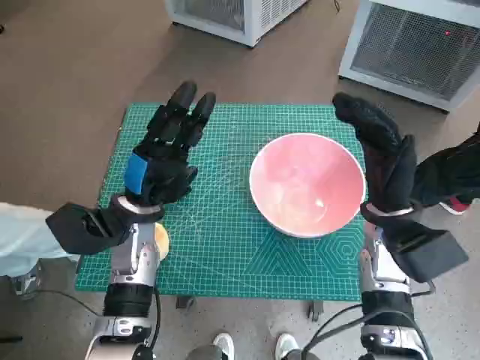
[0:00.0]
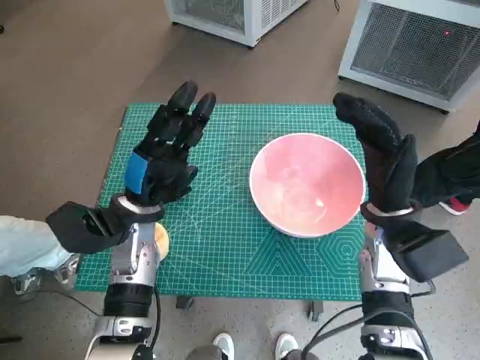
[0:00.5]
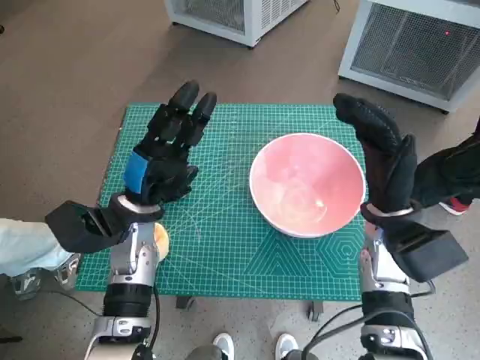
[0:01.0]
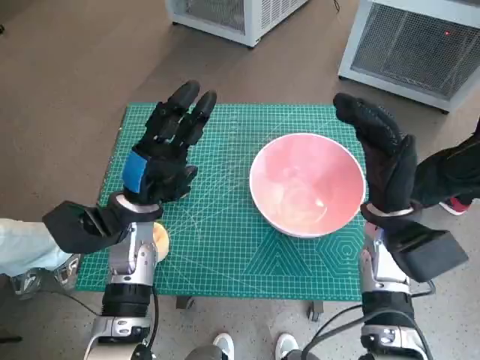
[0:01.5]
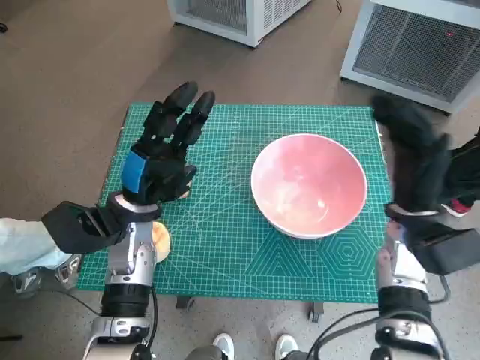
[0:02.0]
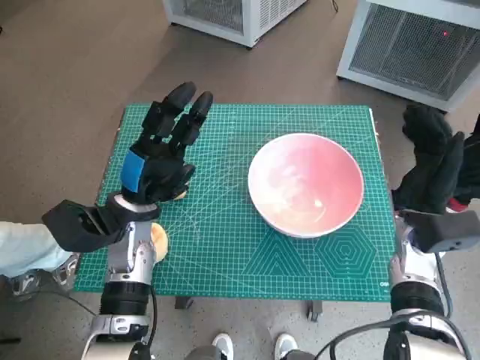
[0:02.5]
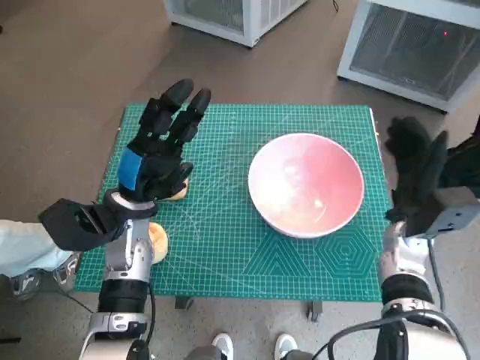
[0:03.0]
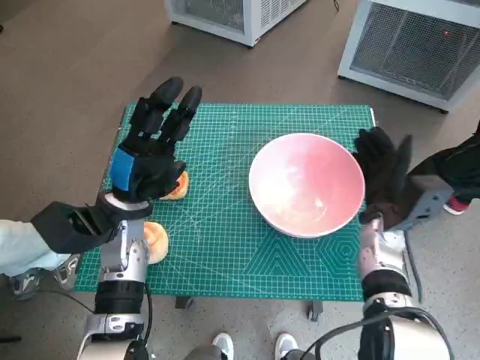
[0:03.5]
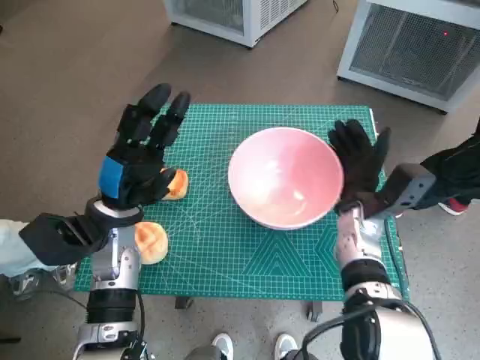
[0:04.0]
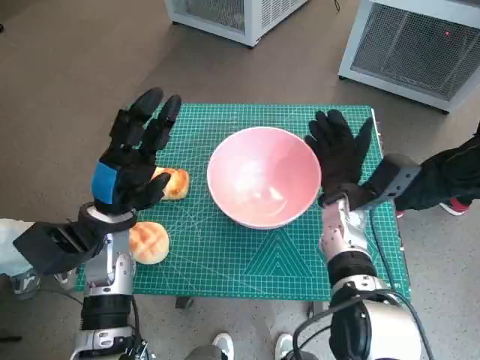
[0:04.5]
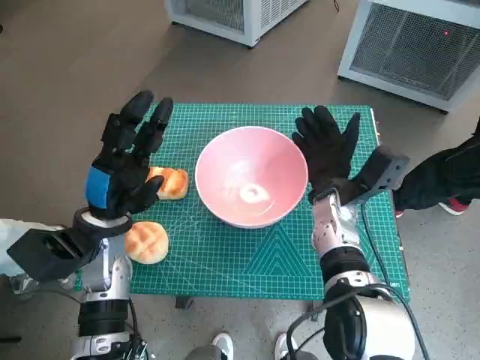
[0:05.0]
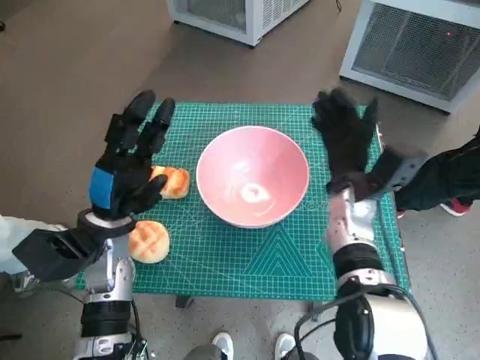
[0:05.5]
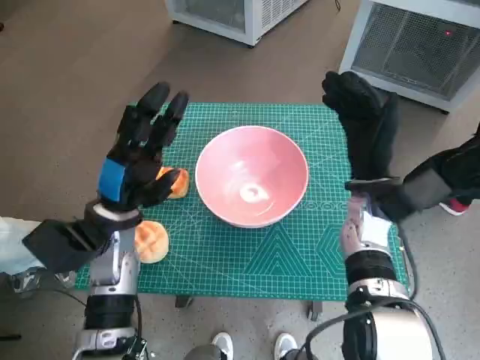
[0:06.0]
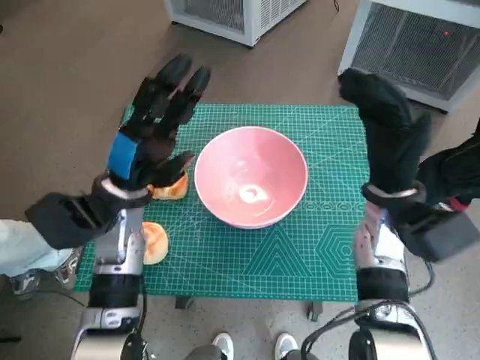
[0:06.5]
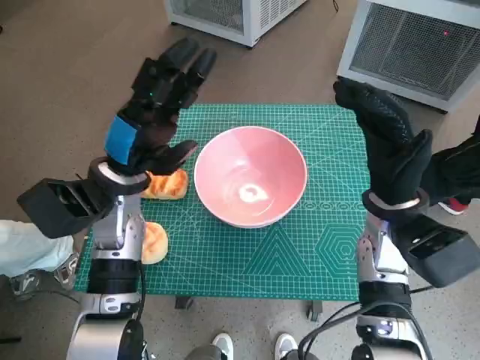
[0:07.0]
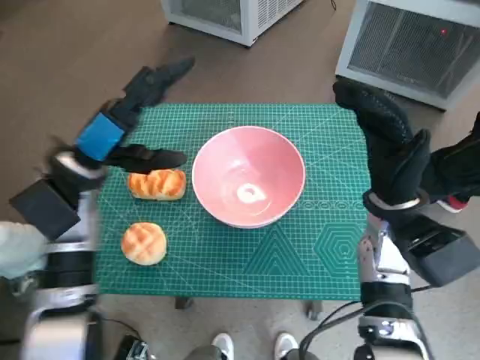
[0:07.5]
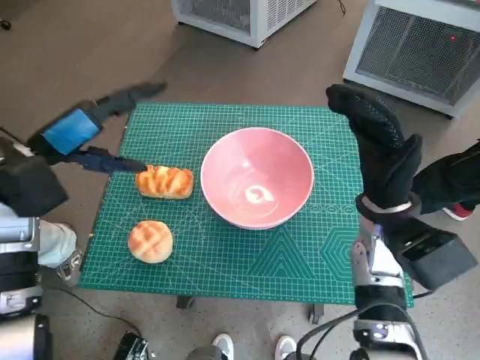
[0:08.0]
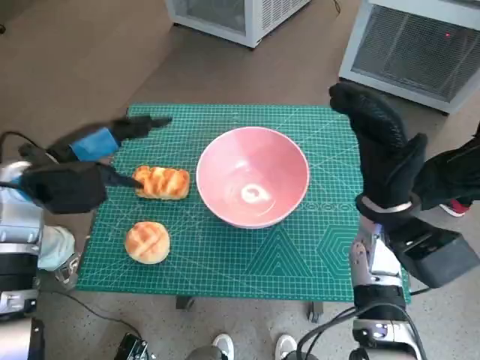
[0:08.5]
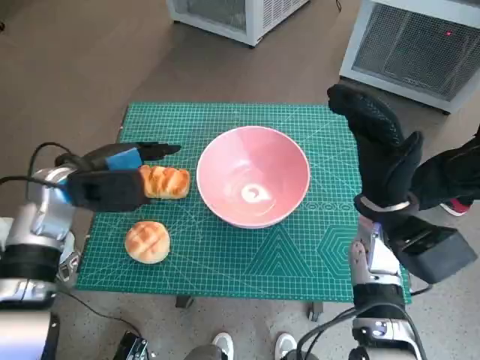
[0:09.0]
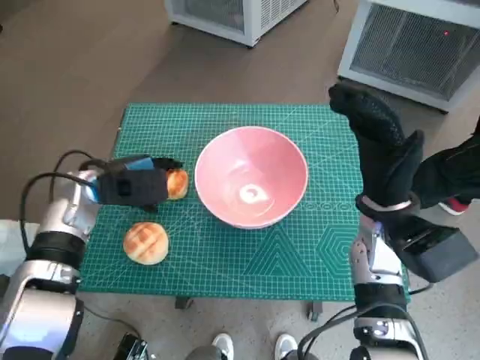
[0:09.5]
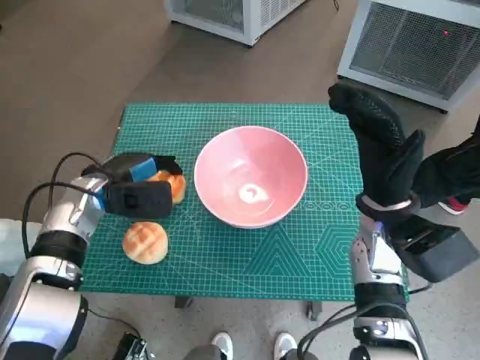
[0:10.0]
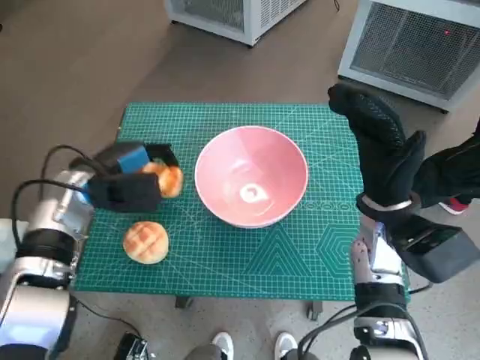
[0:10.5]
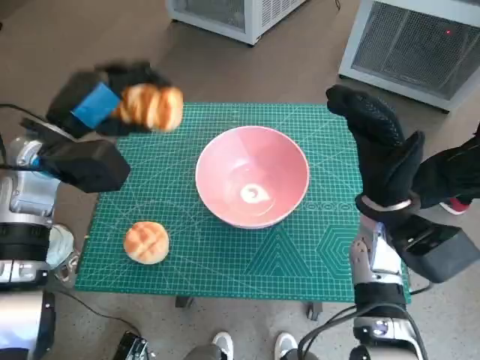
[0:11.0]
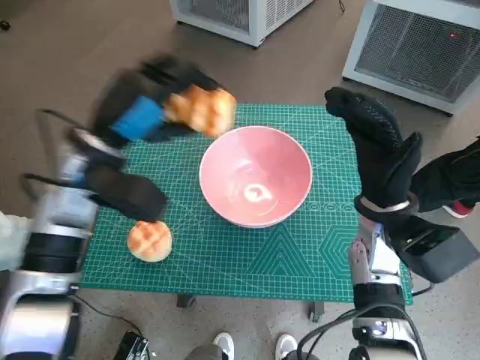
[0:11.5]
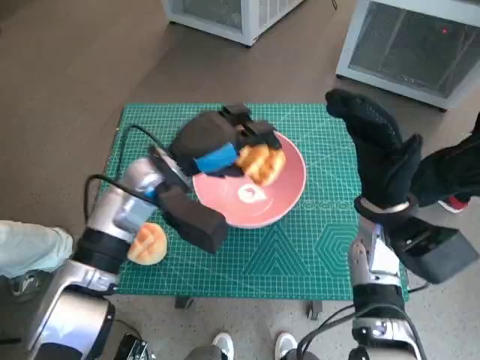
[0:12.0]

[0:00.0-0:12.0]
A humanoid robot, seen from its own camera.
Task of the whole recording: Push the bowl into the center of the table and put the bread into the bowl.
Step, 0:00.0 to 0:05.0: Move the pink bowl to the center of table with right hand.
Step, 0:05.5 to 0:09.5: Grasp the long bread with left hand.
0:02.0 to 0:04.0: The right hand heads downward, covering about 5 cm.
0:04.0 to 0:06.0: The right hand heads upward, covering roughly 5 cm.
0:06.0 to 0:08.0: The left hand shifts about 15 cm upward and to the left.
0:08.0 to 0:10.0: The left hand moves downward, some 10 cm.
0:10.0 to 0:12.0: The left hand shifts roughly 10 cm to the right and upward.

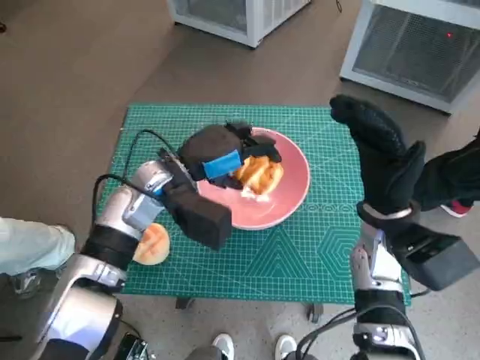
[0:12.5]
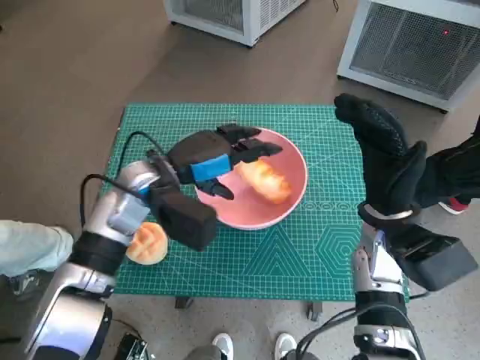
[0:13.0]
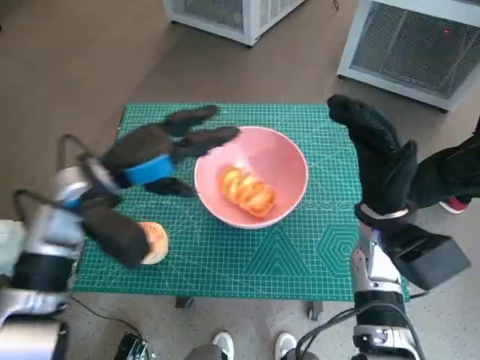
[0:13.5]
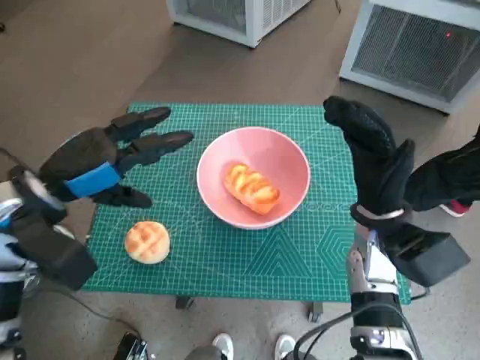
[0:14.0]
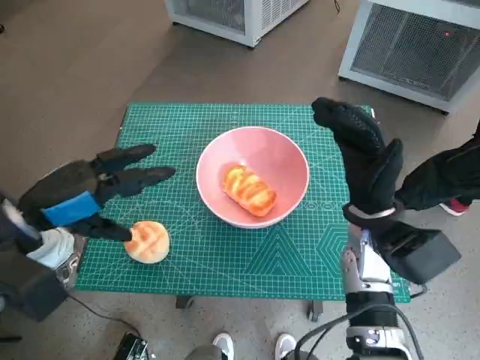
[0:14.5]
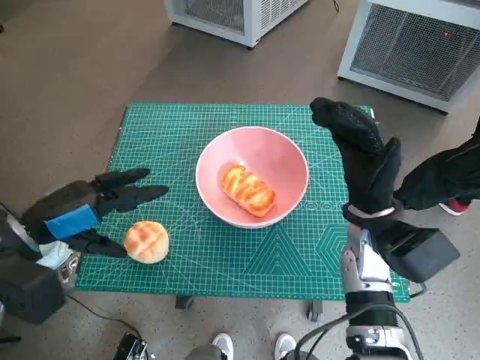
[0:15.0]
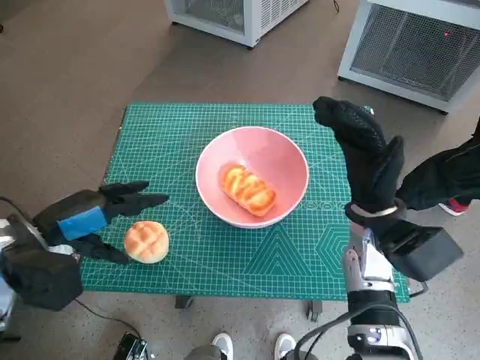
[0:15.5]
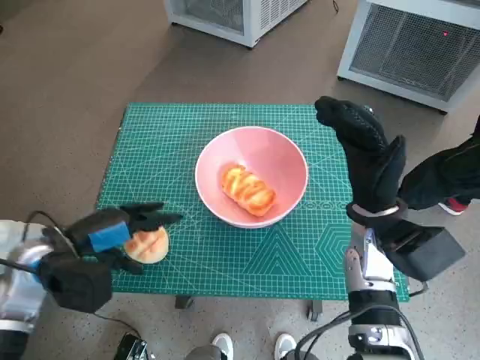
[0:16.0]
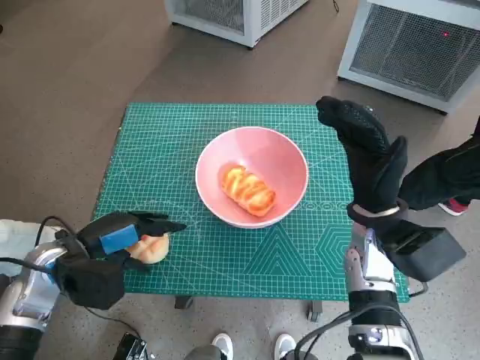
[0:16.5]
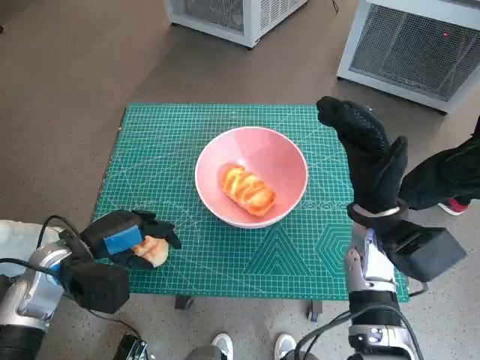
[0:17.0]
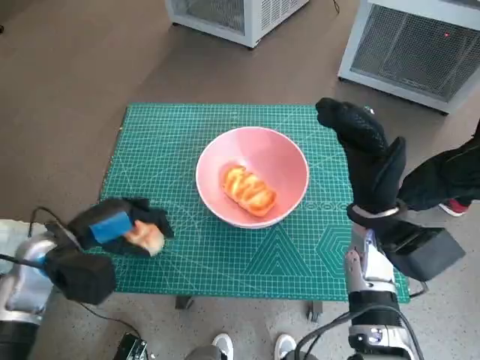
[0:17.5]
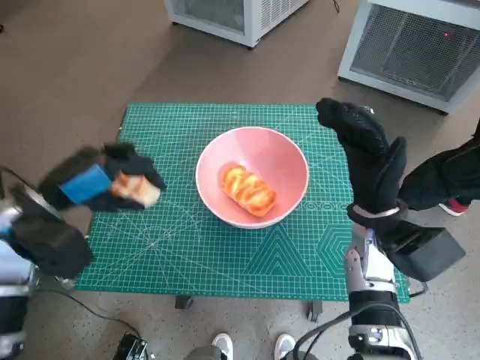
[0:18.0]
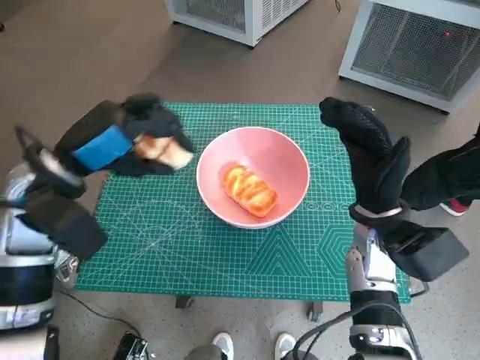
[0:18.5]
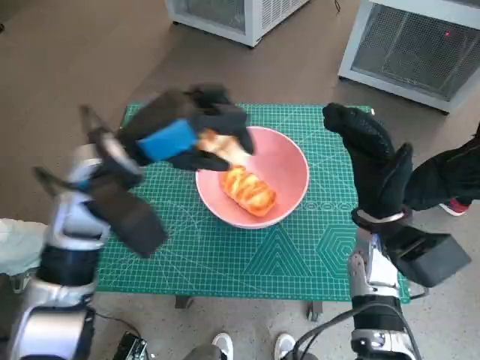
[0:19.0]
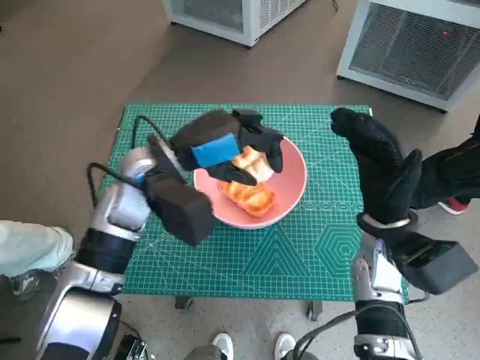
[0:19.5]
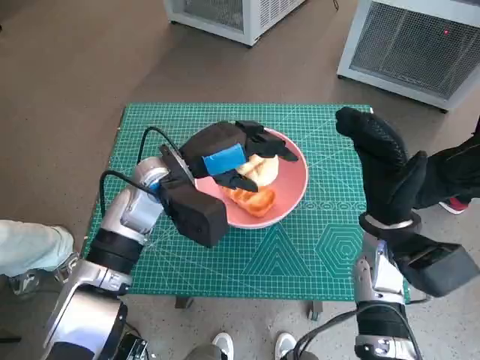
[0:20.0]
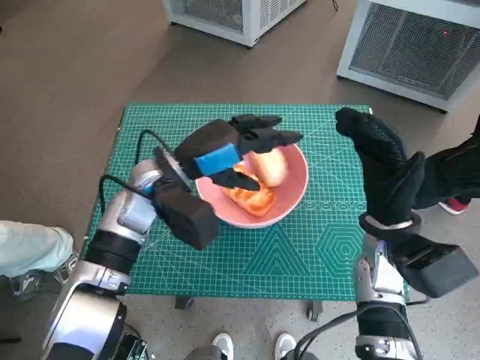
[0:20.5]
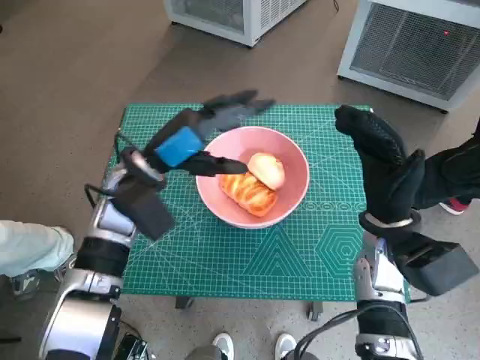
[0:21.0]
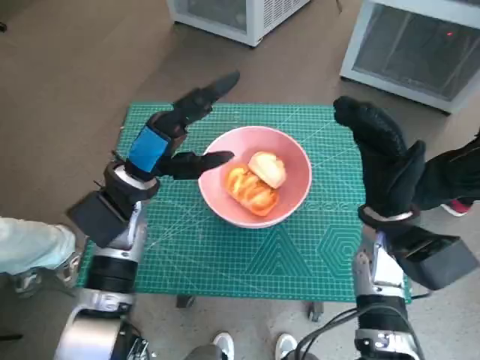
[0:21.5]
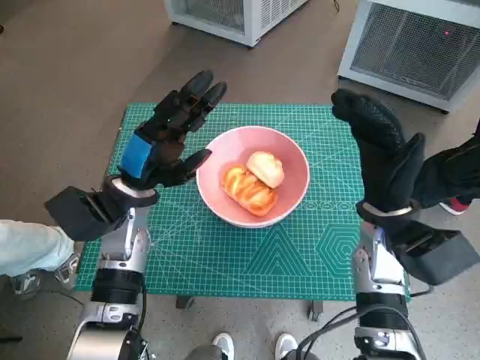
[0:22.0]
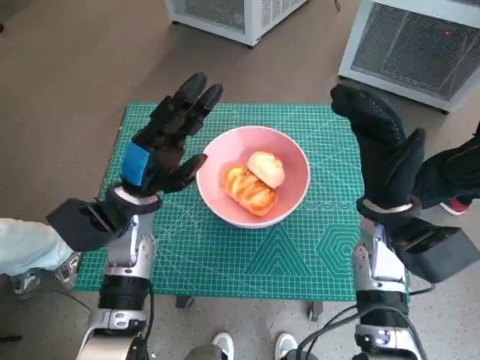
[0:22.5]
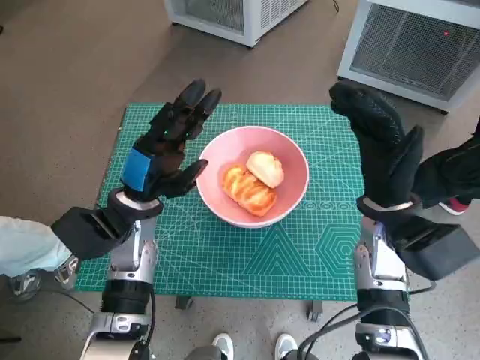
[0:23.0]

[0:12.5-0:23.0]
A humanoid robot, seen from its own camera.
Task of the whole recording: Push the bowl into the center of the table and put the bread into the bowl.
Step, 0:13.5 to 0:16.5: Grasp the round bread with left hand.
Step, 0:17.0 to 0:20.0: Place the round bread in pink bowl with left hand.
0:12.5 to 0:14.5: The left hand shifts about 20 cm to the left and backward.
0:14.5 to 0:16.5: The left hand travels downward by roughly 10 cm.
0:16.5 to 0:19.0: The left hand is displaced upward, to the right and forward by some 20 cm.
0:19.0 to 0:21.0: The left hand shifts approximately 5 cm downward.
0:21.0 to 0:23.0: The left hand ends up approximately 5 cm from where it was.
